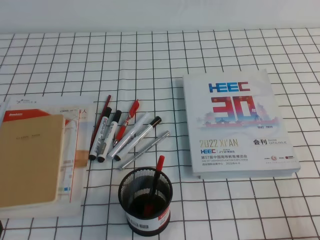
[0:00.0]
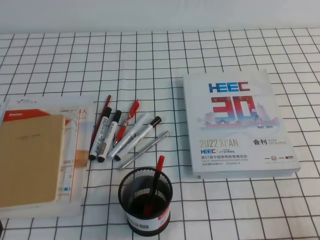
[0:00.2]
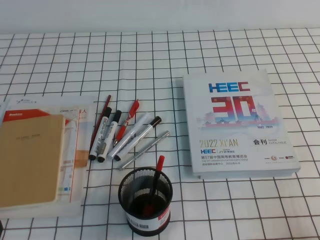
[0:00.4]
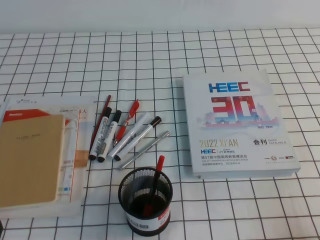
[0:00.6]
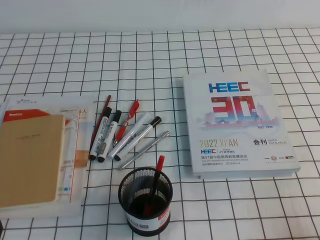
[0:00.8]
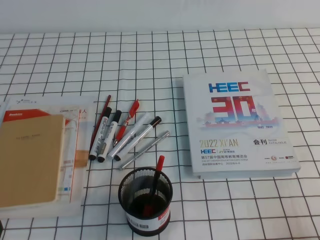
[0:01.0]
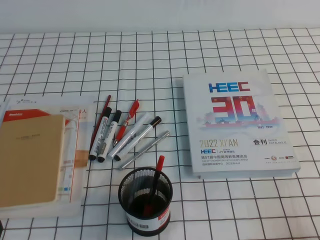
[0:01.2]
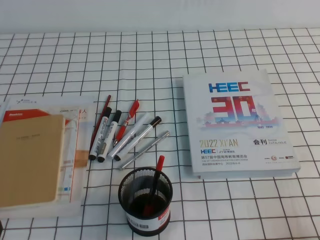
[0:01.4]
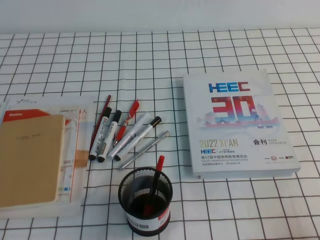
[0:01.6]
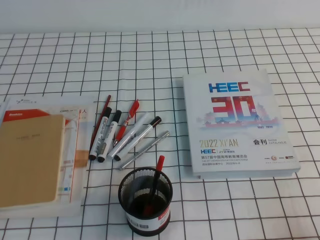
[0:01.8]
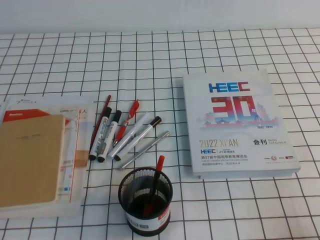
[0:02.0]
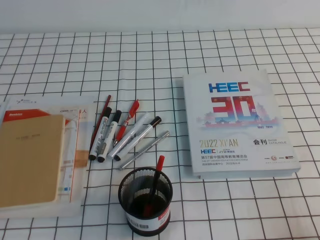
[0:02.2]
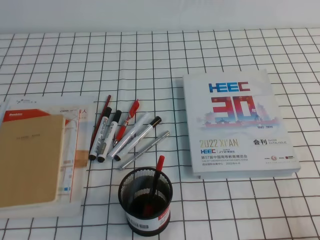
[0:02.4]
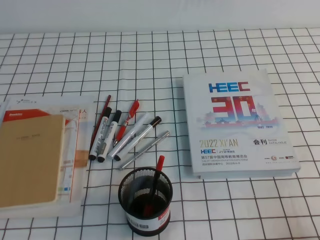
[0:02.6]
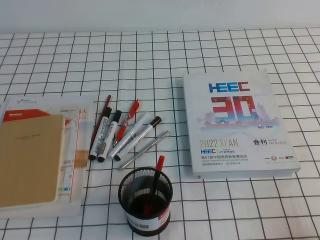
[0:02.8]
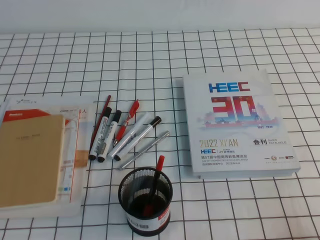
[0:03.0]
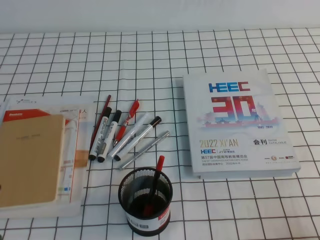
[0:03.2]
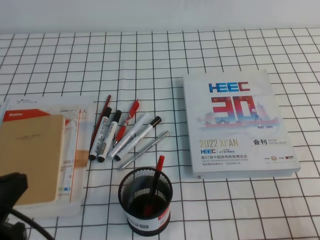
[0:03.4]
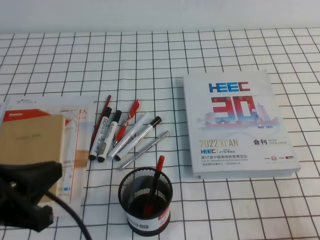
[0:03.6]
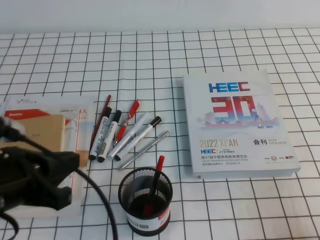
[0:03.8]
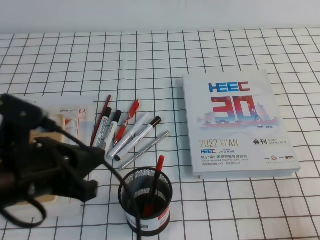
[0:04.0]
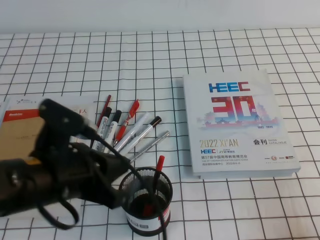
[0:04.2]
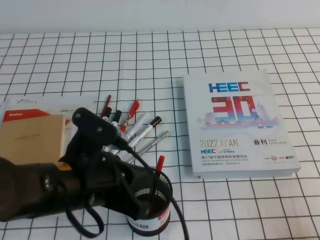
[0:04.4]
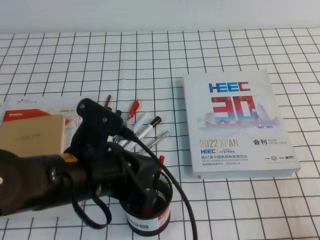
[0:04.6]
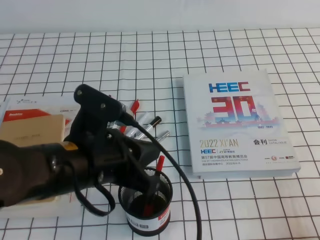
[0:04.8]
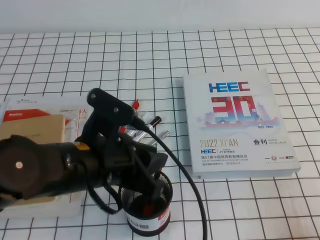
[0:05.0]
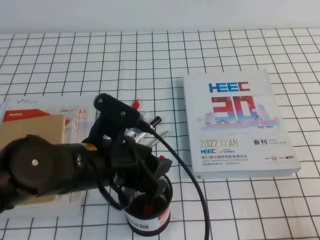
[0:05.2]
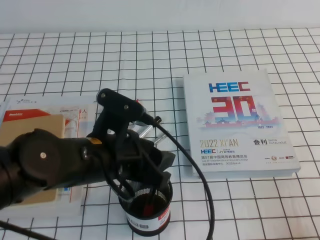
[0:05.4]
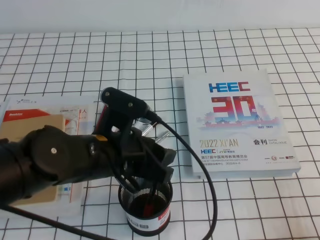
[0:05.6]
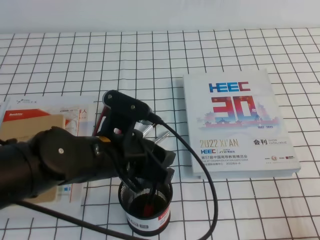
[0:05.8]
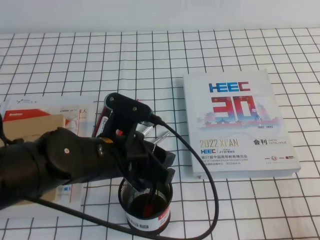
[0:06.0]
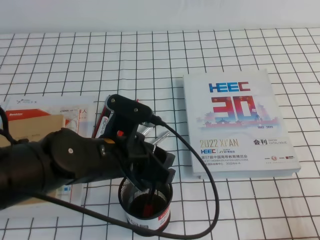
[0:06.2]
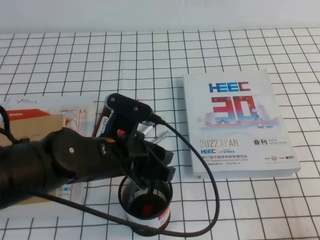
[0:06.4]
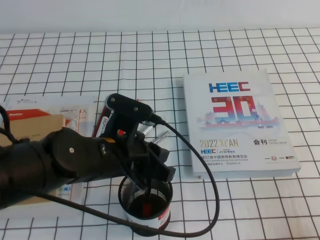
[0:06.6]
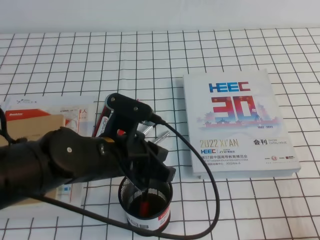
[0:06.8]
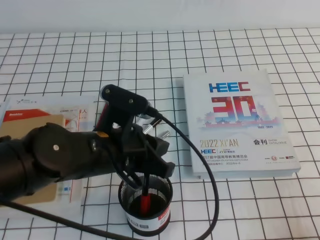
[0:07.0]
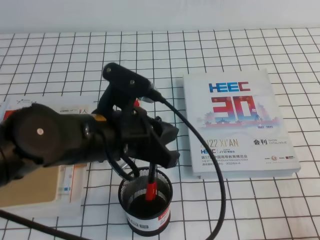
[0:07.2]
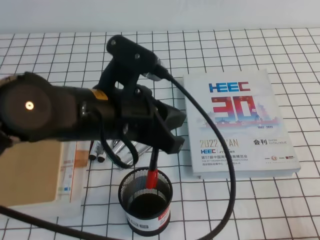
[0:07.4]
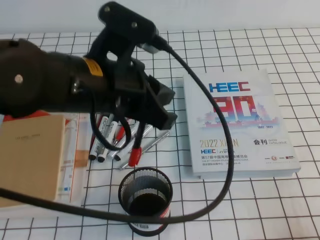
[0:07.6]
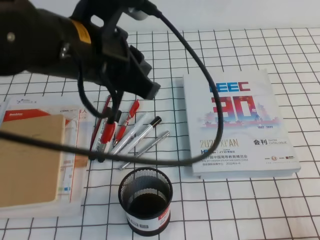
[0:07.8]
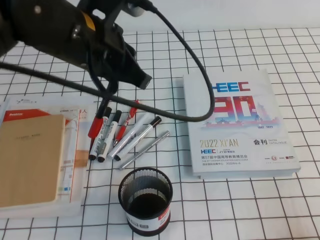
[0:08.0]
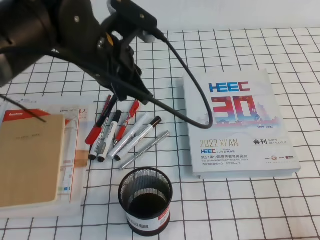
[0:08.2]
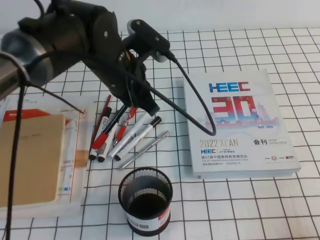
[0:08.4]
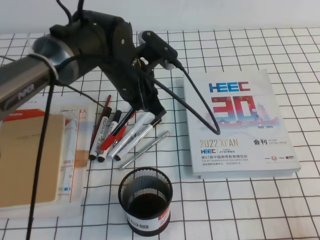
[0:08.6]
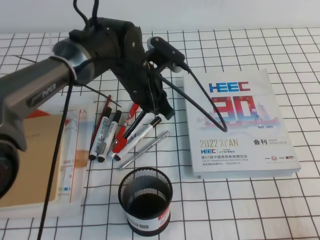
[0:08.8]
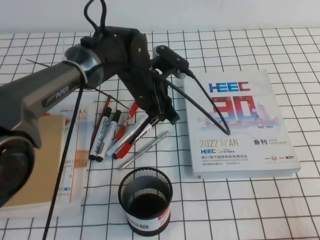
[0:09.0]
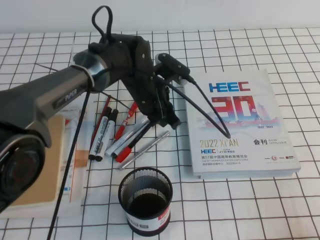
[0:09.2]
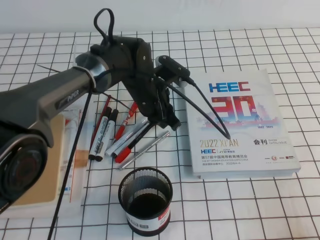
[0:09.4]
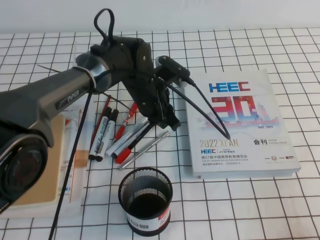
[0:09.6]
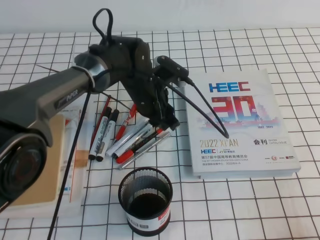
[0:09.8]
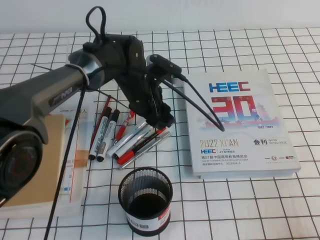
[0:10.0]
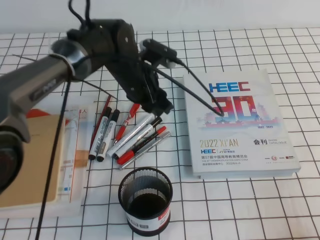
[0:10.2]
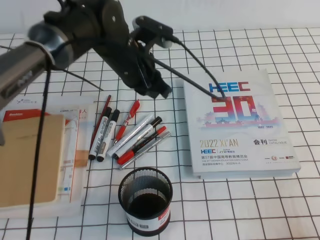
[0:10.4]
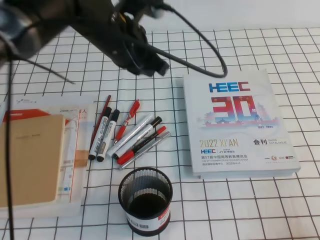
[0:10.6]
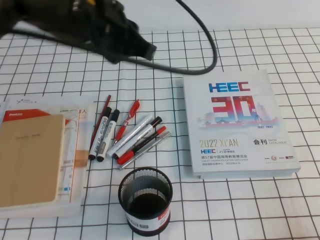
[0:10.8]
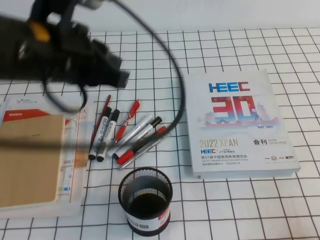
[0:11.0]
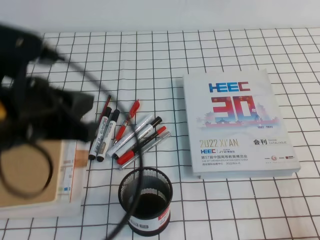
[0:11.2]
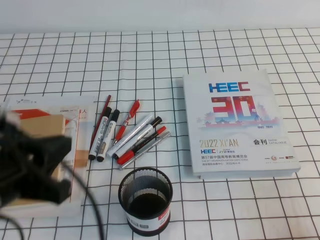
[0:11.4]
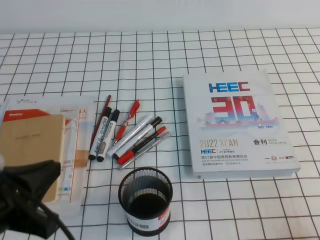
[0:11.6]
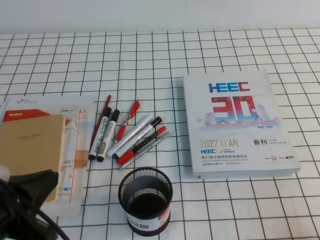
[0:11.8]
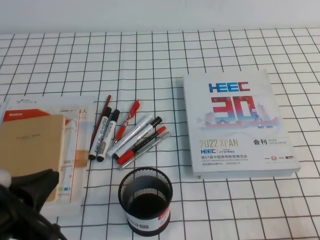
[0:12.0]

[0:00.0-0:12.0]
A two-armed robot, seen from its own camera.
0:03.0 to 0:04.4: The left gripper goes about 20 cm to the right and forward.
0:04.4 to 0:06.0: The left gripper shifts about 5 cm forward, and opens up.
0:06.0 to 0:07.6: The left gripper shifts about 10 cm upward, and closes its fingers.
0:07.6 to 0:09.0: The left gripper shifts roughly 20 cm forward and downward.
0:09.0 to 0:10.4: The left gripper travels upward by some 5 cm, and opens, then closes once more.
0:10.4 to 0:12.0: The left gripper shifts about 35 cm backward and to the left.

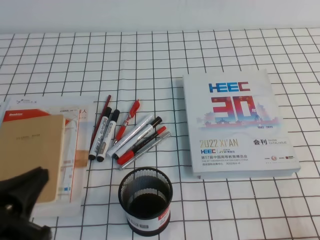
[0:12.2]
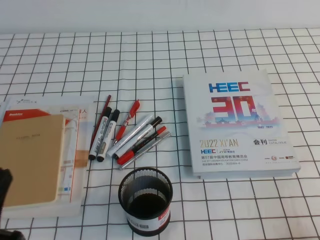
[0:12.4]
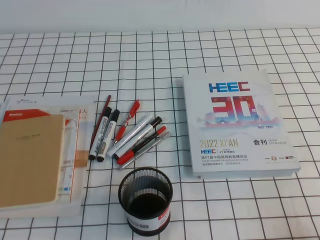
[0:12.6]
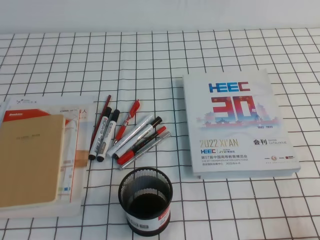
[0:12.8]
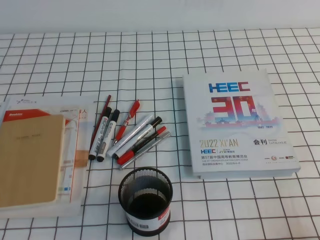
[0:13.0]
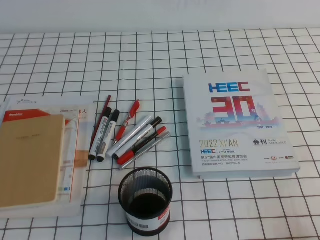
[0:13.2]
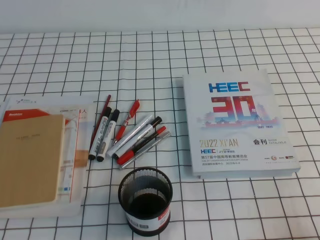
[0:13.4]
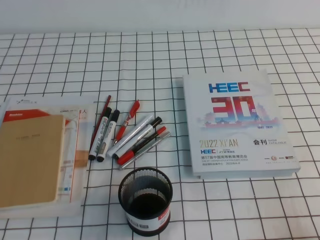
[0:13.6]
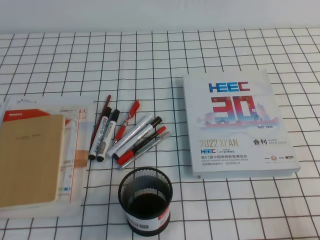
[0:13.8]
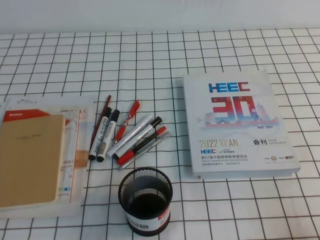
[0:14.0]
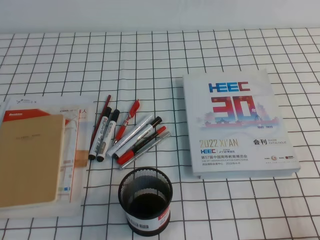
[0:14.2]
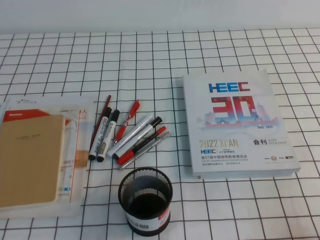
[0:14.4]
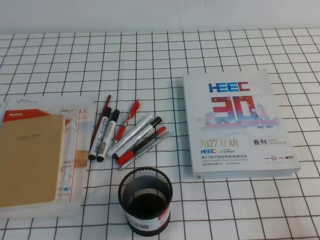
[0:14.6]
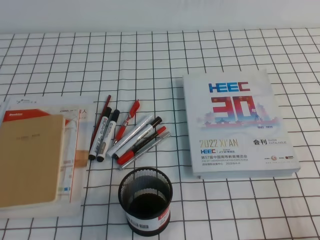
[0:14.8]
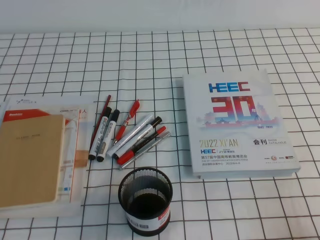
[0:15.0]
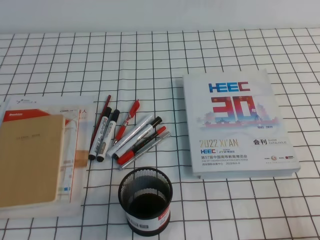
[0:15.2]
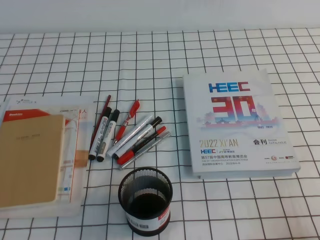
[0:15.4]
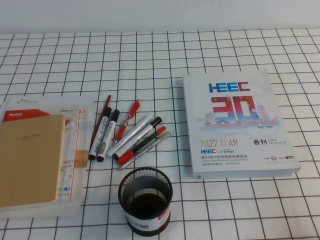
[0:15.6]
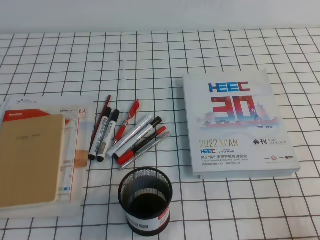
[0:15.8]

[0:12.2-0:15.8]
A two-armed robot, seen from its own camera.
Step, 0:12.2 to 0:15.8: Pick up the pen from the pen holder.
0:12.2 to 0:14.0: The left gripper travels downward by about 10 cm.
0:14.0 to 0:15.8: Both grippers stay put.
